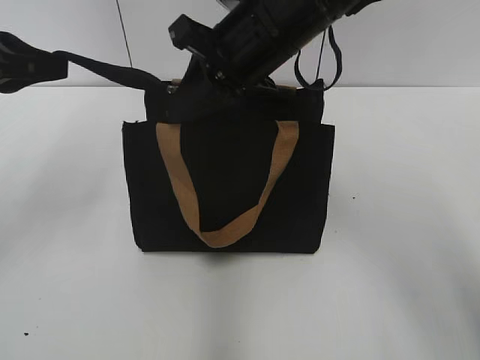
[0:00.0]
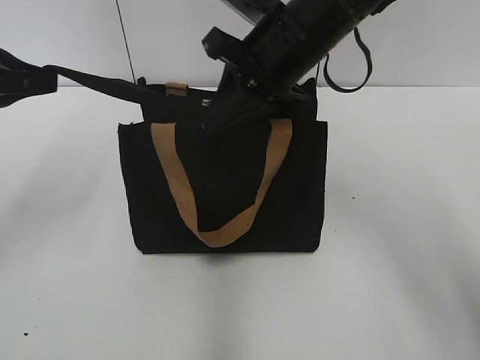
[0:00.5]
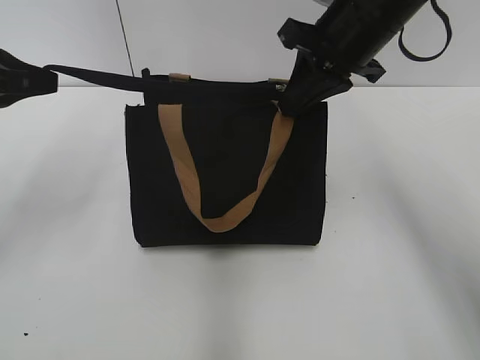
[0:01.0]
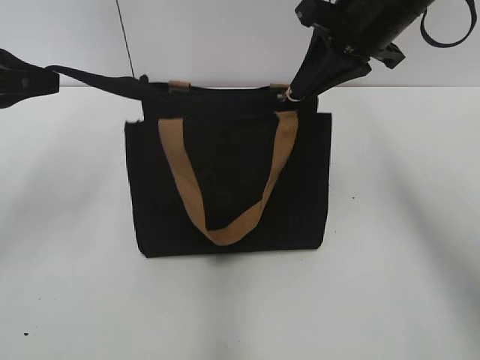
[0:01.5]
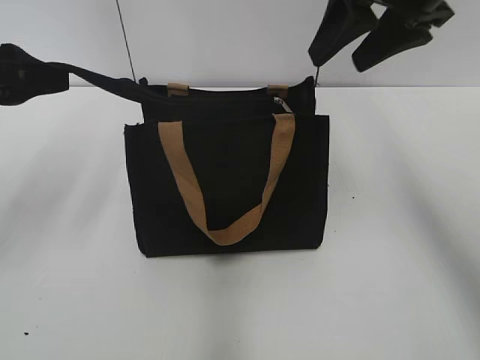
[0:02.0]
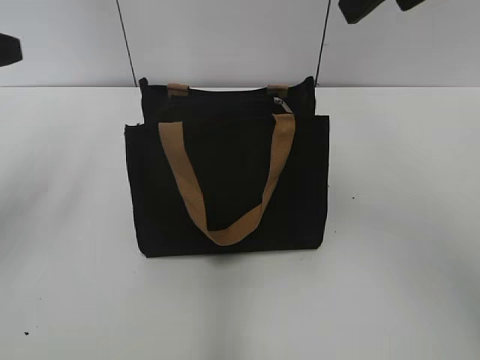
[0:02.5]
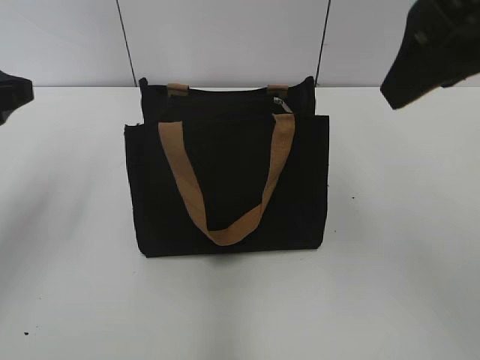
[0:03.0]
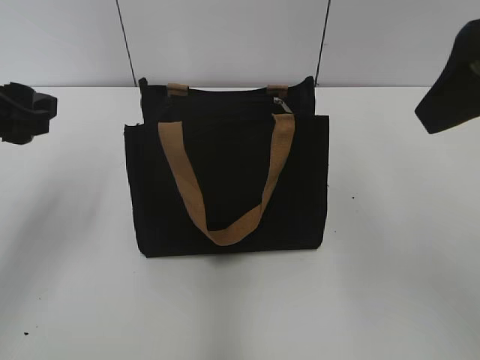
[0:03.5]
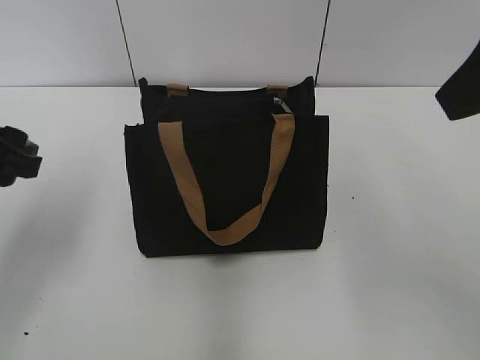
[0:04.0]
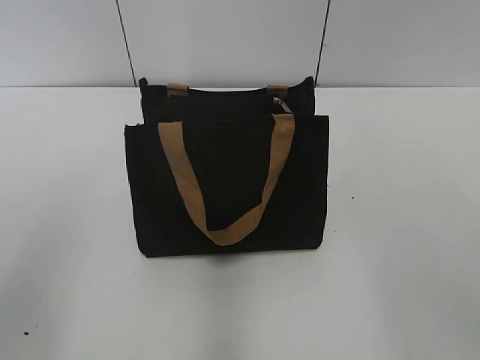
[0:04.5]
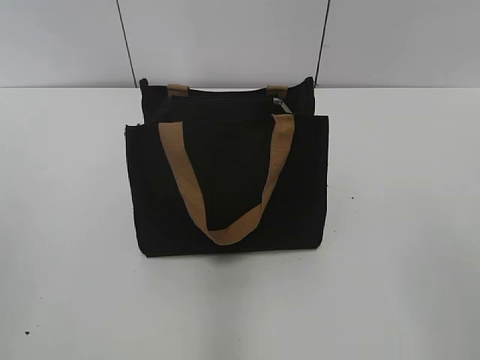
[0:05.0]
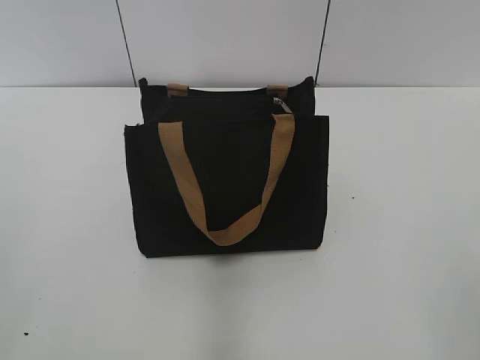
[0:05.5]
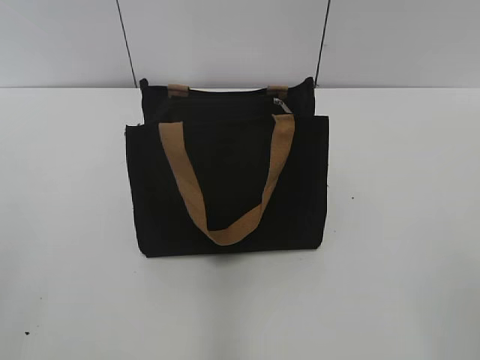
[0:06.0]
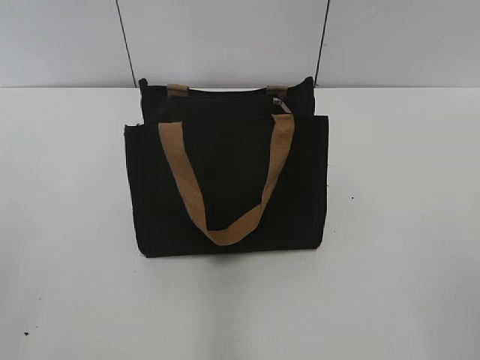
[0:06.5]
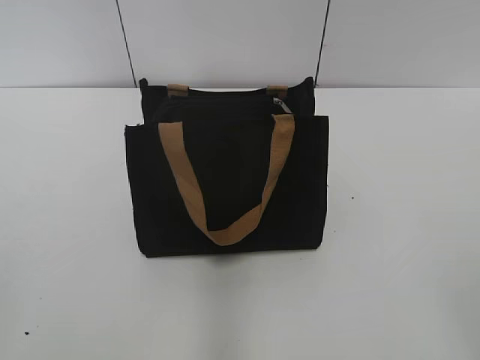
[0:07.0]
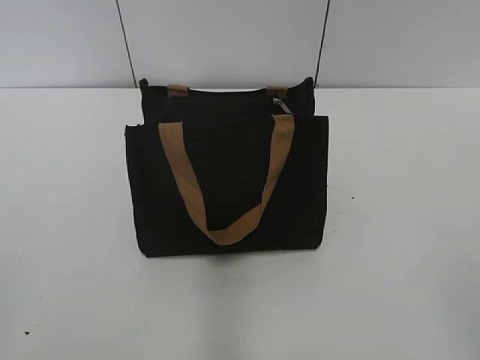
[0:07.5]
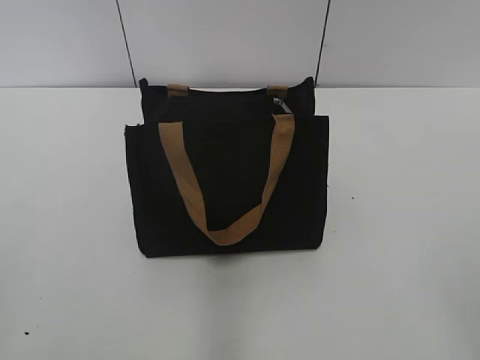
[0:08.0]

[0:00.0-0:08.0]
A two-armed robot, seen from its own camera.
0:00.0 to 0:02.0: The right gripper goes roughly 15 cm to the right and upward, and opens up, while the left gripper opens its fingers.
0:02.0 to 0:04.0: The left gripper shifts by some 5 cm. Meanwhile the right gripper shifts roughly 15 cm backward.
0:04.0 to 0:06.0: The right gripper travels backward, downward and to the right by approximately 25 cm. Meanwhile the left gripper travels backward by roughly 20 cm.
